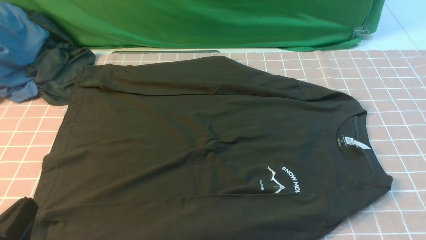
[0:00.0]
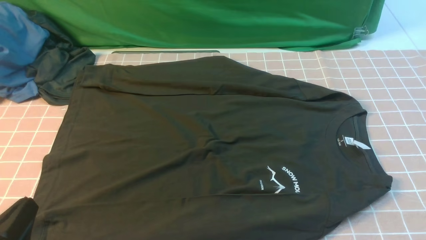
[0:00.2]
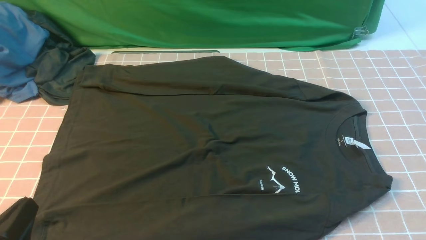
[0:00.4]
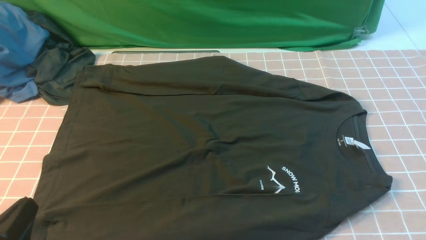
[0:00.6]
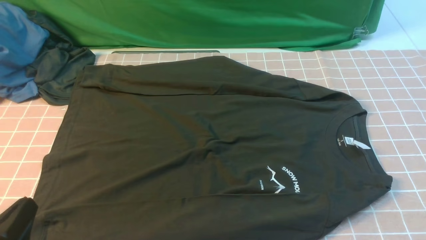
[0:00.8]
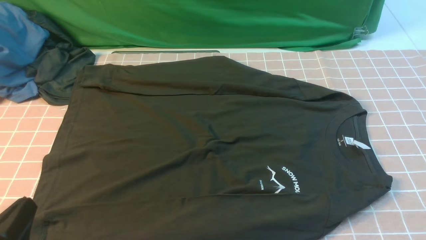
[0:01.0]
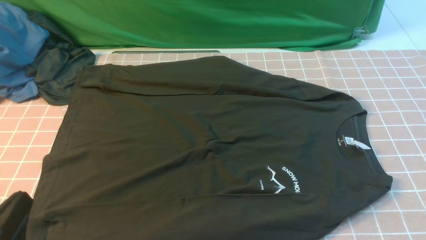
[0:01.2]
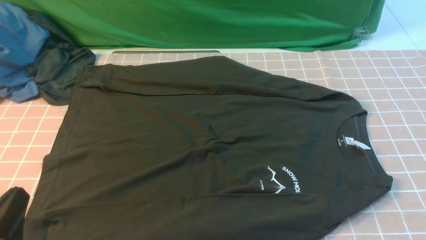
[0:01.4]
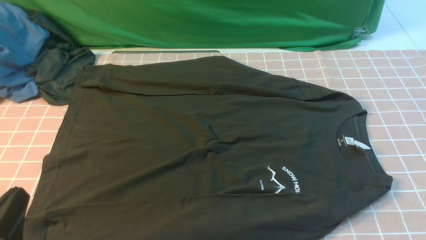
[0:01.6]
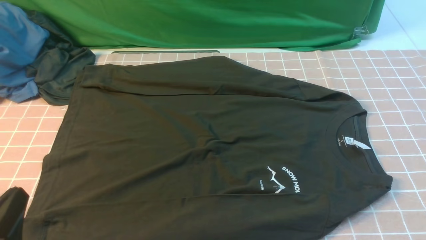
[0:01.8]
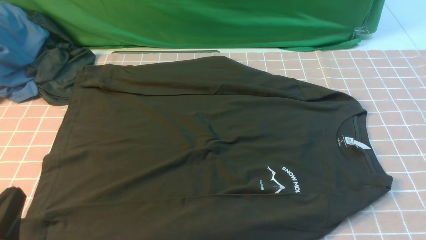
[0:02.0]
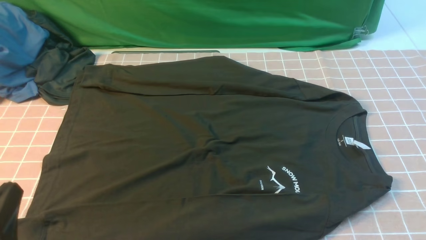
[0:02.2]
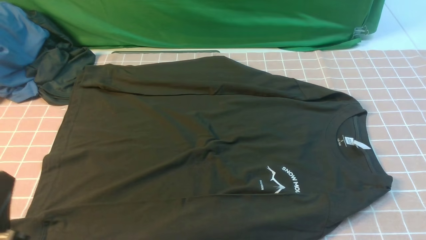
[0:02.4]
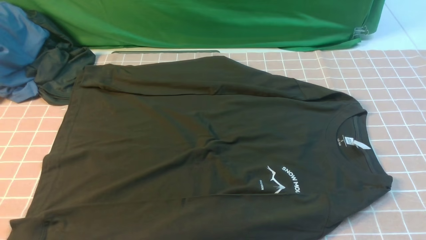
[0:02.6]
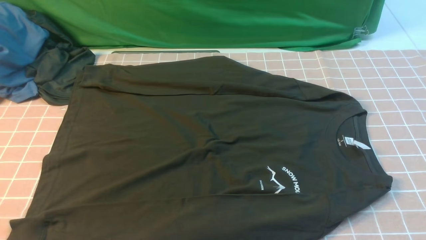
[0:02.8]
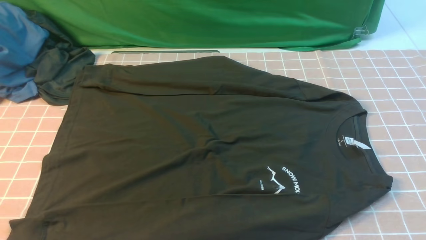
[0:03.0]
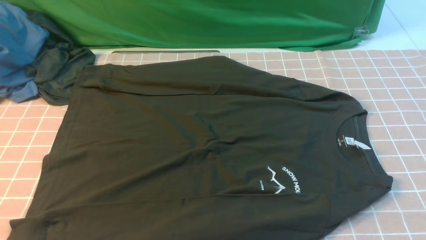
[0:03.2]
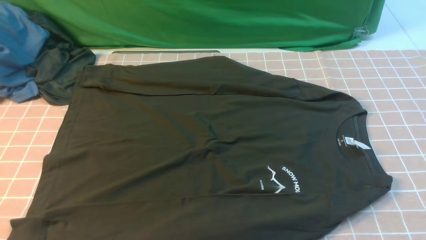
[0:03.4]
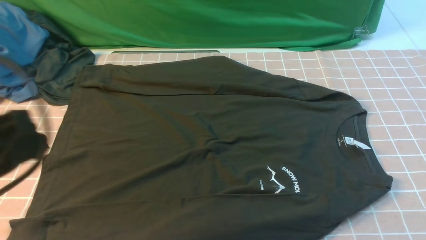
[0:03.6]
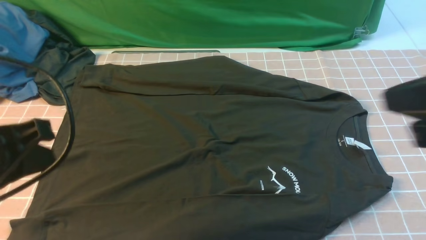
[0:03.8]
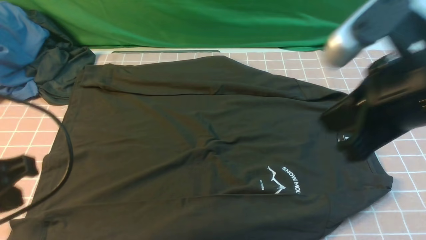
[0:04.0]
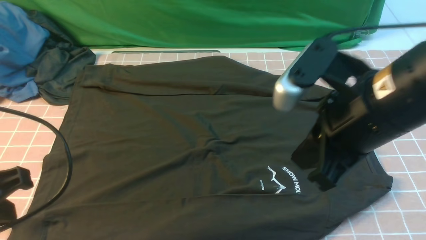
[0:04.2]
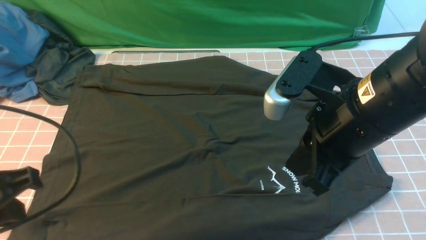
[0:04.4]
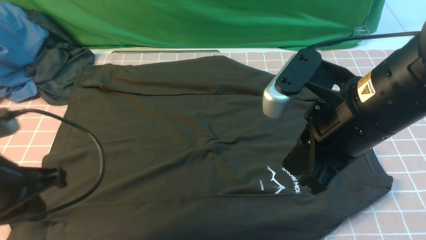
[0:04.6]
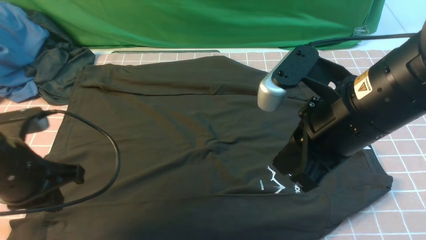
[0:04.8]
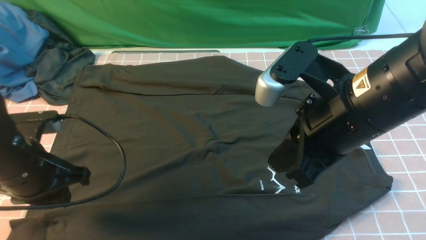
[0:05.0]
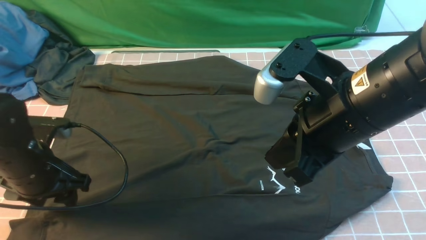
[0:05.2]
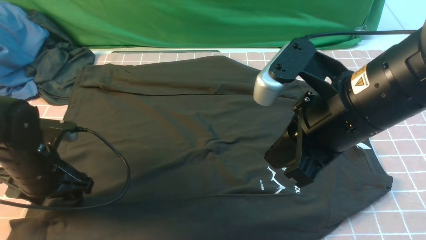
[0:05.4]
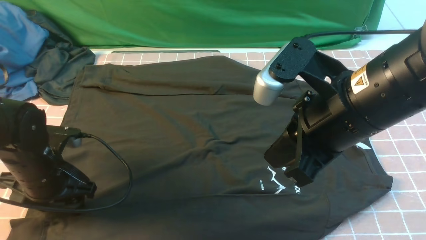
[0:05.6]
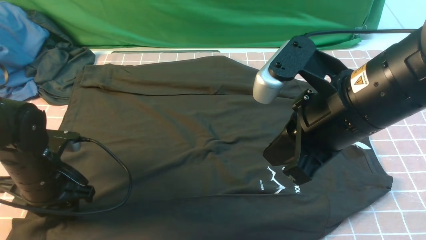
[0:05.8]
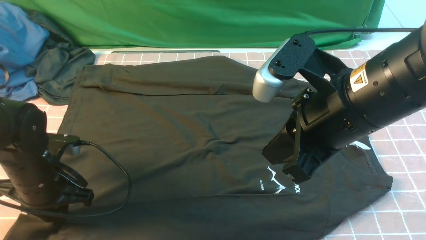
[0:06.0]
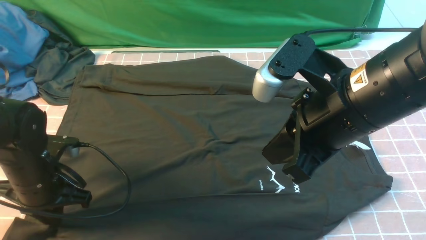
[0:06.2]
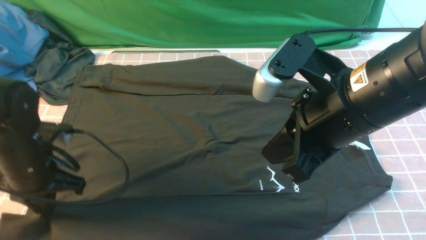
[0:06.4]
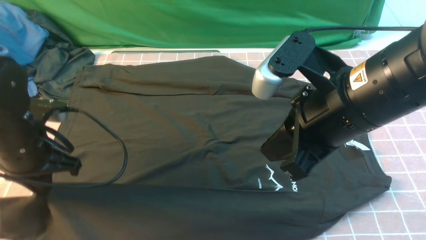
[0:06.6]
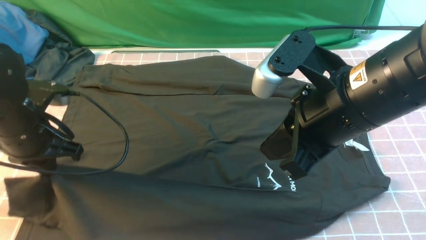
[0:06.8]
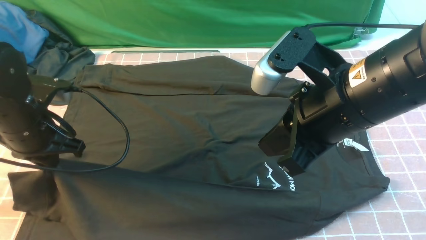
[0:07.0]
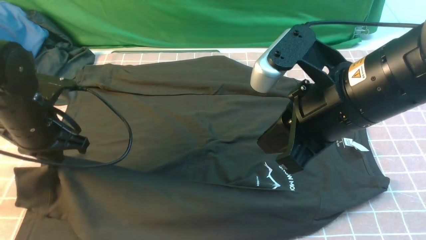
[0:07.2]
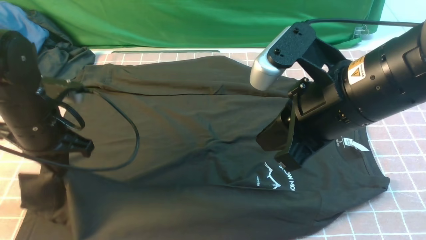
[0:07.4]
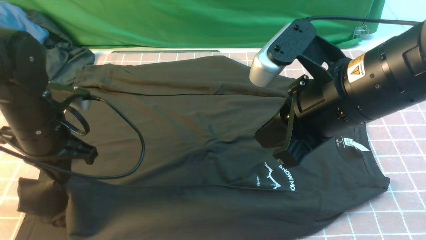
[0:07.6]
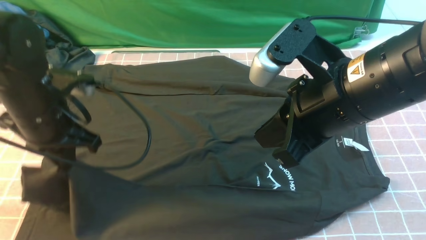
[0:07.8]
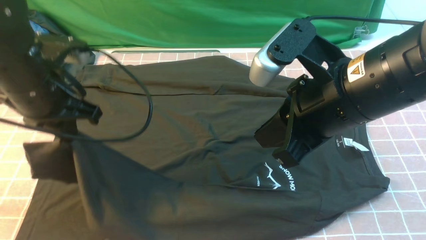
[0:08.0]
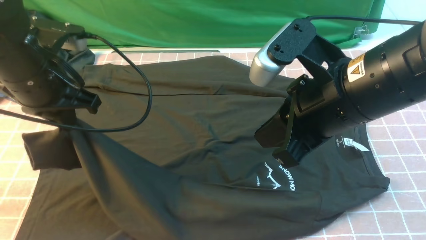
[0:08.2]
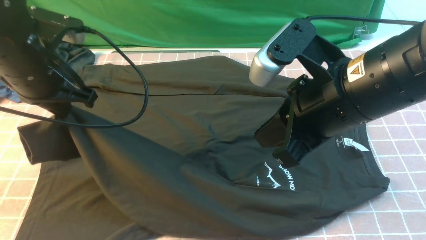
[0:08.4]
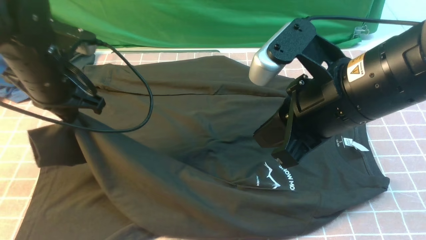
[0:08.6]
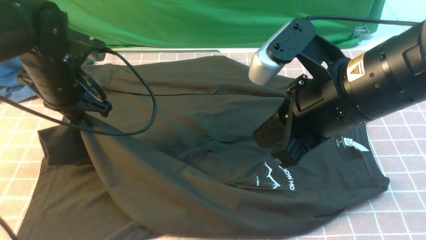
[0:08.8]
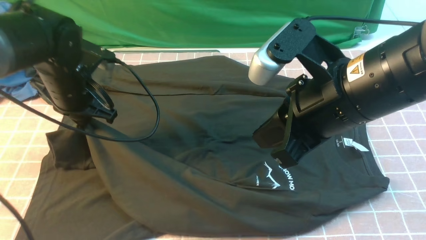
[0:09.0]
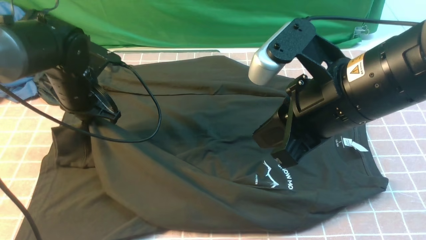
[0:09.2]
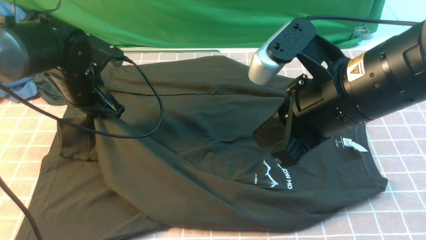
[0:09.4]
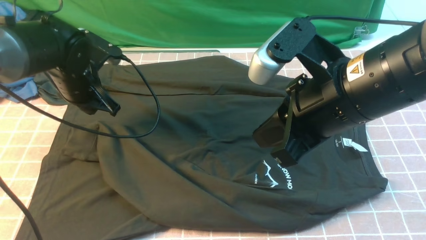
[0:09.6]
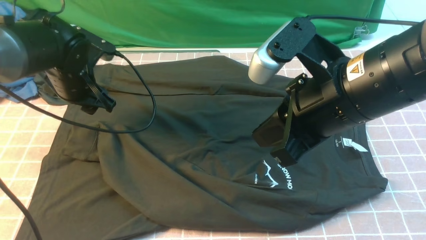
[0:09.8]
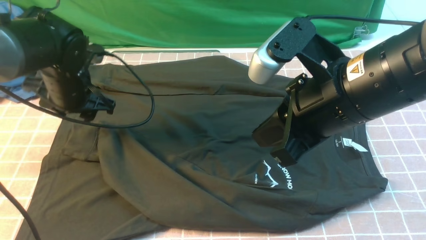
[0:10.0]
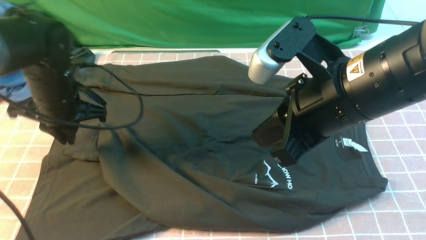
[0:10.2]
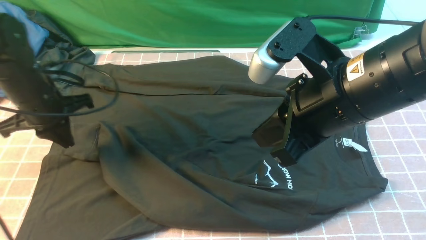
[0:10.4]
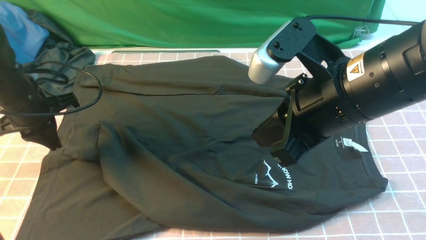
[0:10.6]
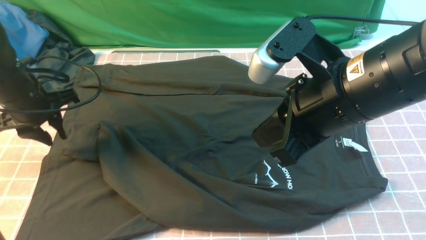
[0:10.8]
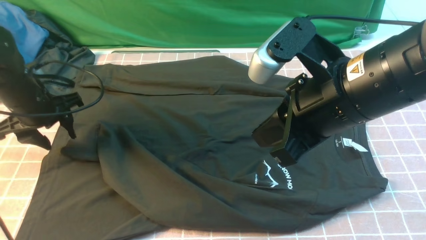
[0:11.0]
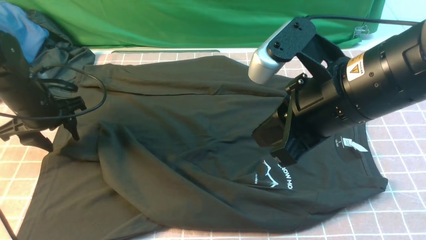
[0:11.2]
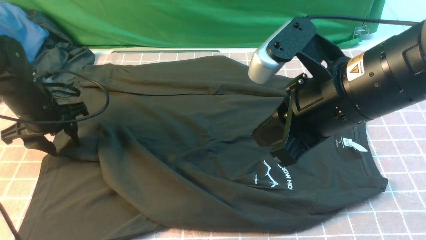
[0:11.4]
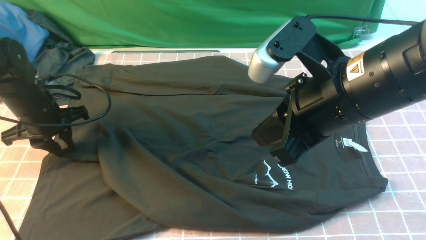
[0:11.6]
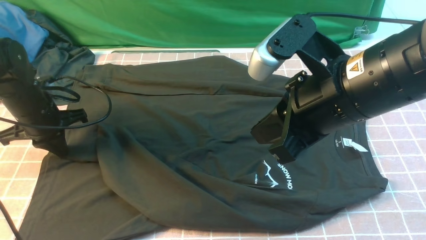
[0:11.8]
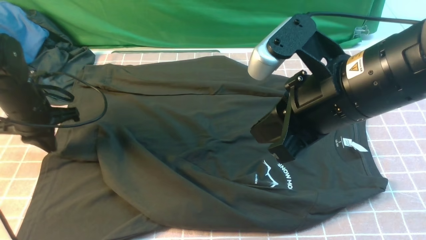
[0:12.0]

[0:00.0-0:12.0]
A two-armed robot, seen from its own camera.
Step, 0:00.0 to 0:06.2: use the left arm to clamp the cuff closest to it.
0:00.0 to 0:01.6: The grippers make only small movements.
0:01.6 to 0:03.0: The left gripper is displaced upward by approximately 5 cm.
0:03.0 to 0:04.4: The left gripper is displaced forward by approximately 10 cm. The right gripper shifts roughly 25 cm to the left, forward and upward, and closes up.
0:04.4 to 0:06.0: The left gripper shifts approximately 15 cm downward and forward, and opens, then closes again.
0:06.0 to 0:07.6: The left gripper heads upward, covering some 10 cm.
0:07.6 to 0:09.0: The left gripper is displaced forward by roughly 10 cm.
0:09.0 to 0:10.4: The left gripper is displaced to the left by some 5 cm, and opens and closes again.
0:10.4 to 0:12.0: The left gripper opens, then closes once more.

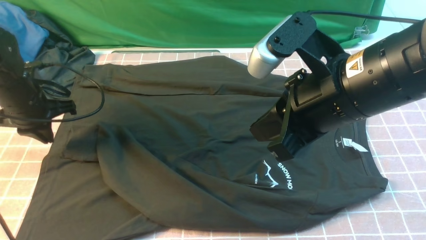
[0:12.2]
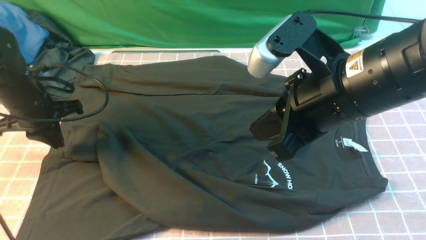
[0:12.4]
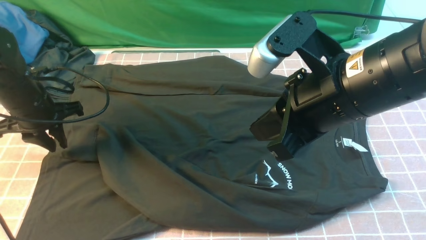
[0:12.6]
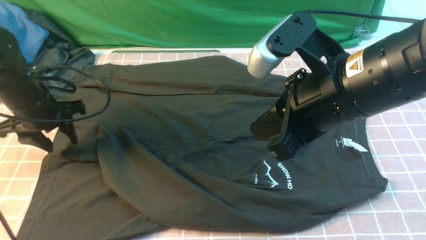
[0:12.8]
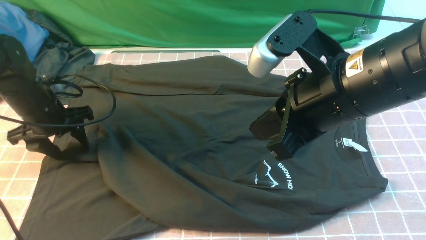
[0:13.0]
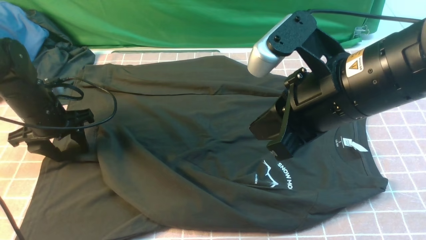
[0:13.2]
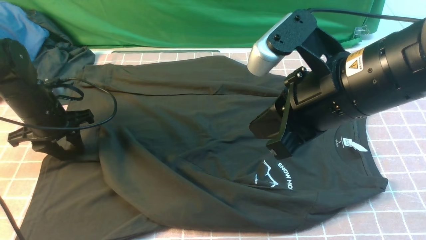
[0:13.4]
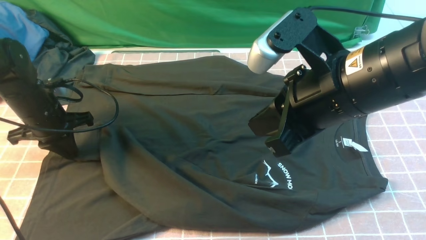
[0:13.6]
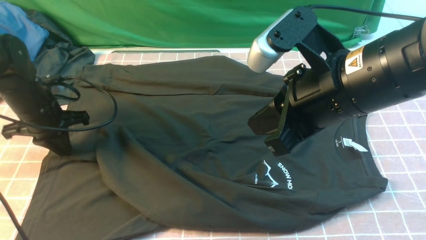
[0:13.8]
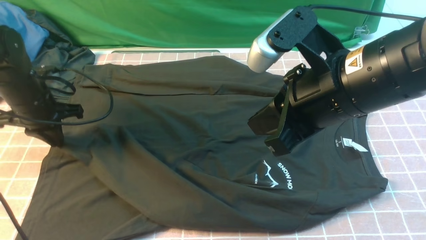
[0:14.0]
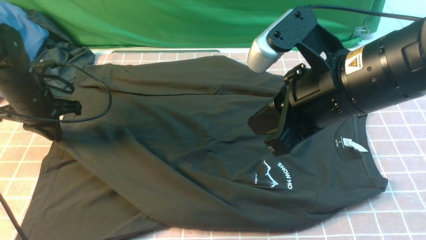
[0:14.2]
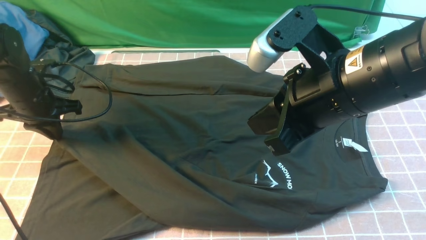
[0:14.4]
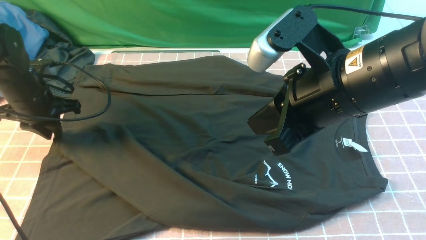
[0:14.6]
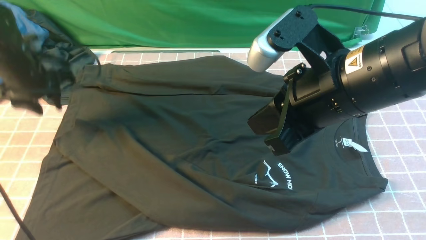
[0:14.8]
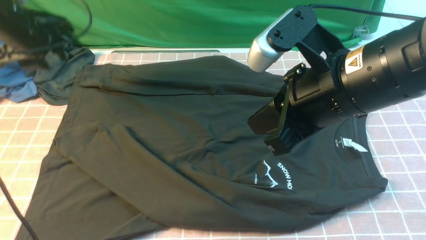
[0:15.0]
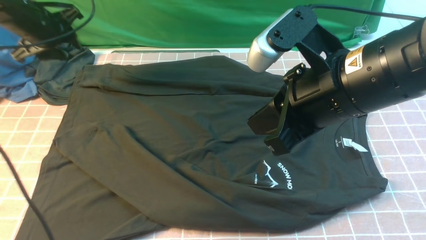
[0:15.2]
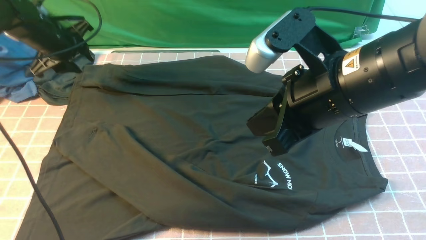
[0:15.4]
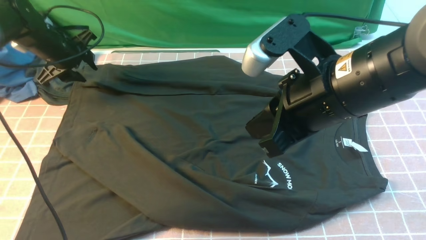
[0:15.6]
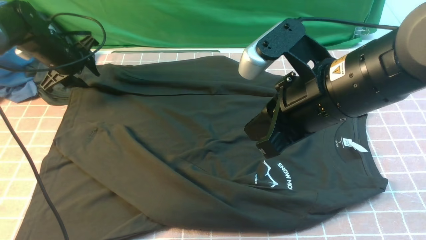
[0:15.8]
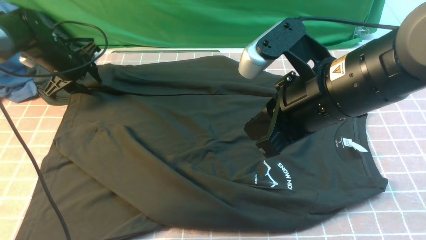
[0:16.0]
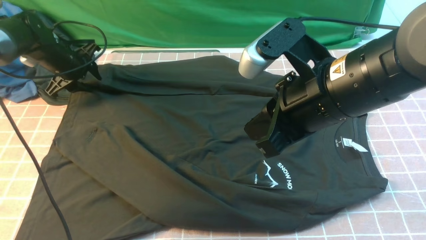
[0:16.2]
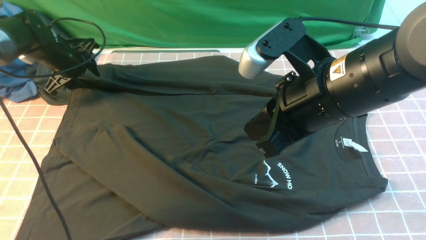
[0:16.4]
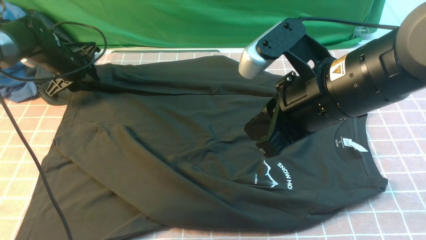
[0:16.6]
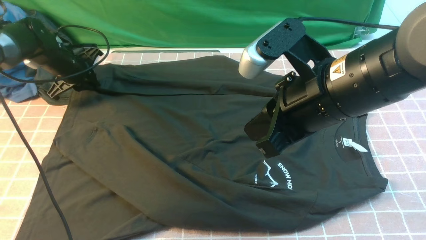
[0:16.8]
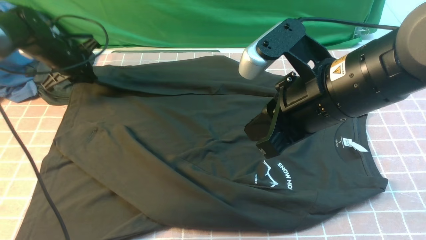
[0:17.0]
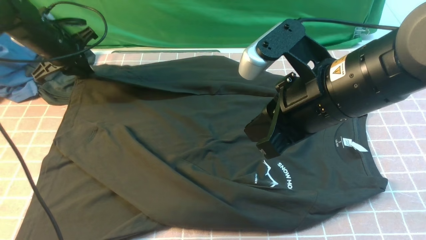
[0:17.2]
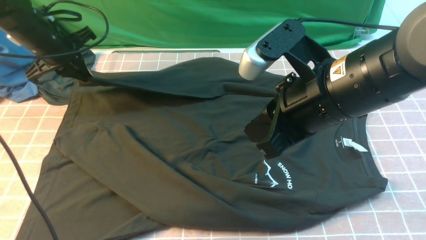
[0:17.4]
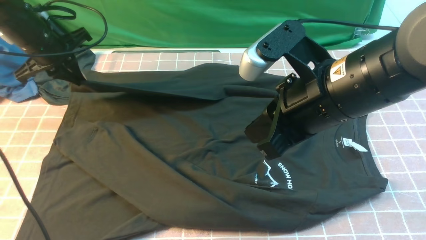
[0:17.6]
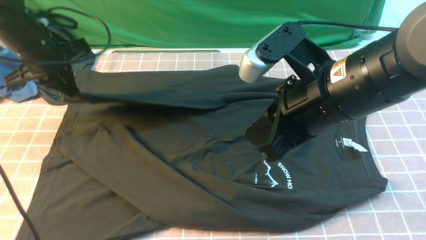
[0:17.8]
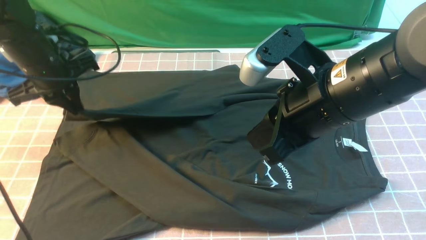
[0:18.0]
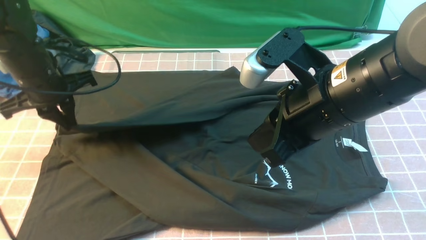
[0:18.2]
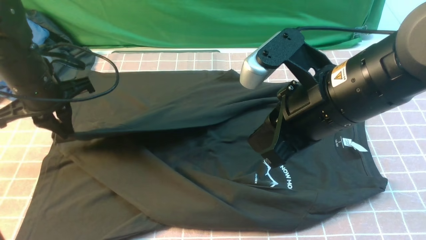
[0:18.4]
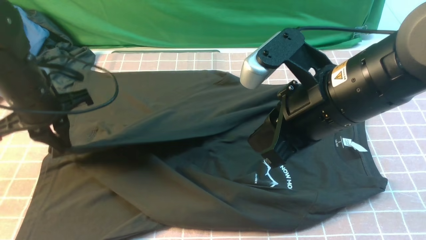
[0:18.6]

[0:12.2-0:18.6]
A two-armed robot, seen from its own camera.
Step, 0:12.2 to 0:14.8: use the left arm to drag and place the cuff at the centered position on the left edge of the fabric.
Step, 0:15.0 to 0:16.6: use the left arm to clamp the cuff farthest from it.
0:12.2 to 0:13.8: The left gripper opens and closes again.
0:13.8 to 0:15.4: The left gripper is displaced forward by approximately 10 cm, and opens.
0:15.4 to 0:17.0: The left gripper closes its fingers.
0:17.0 to 0:18.6: The left gripper travels backward by roughly 15 cm.
